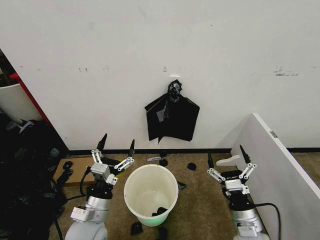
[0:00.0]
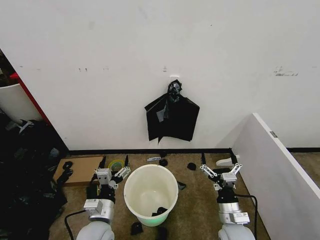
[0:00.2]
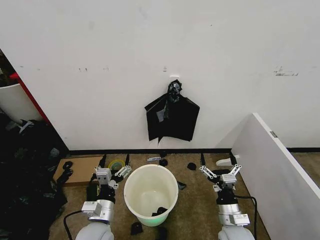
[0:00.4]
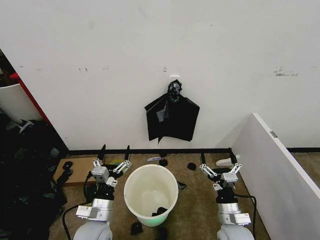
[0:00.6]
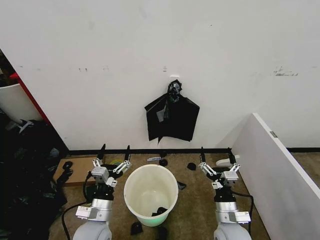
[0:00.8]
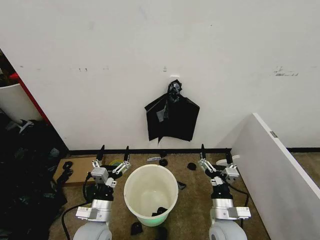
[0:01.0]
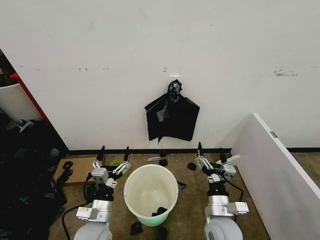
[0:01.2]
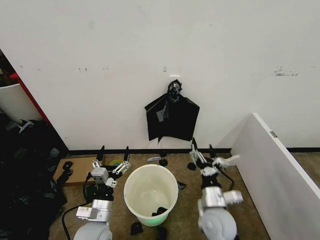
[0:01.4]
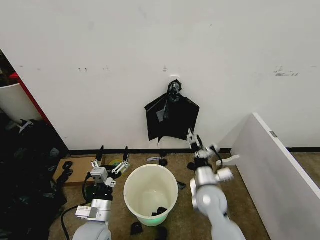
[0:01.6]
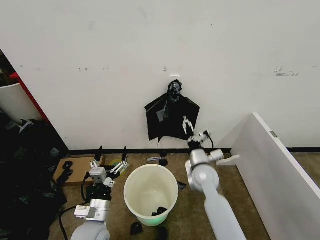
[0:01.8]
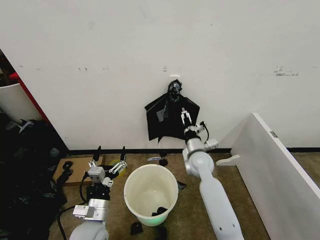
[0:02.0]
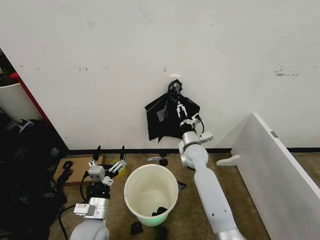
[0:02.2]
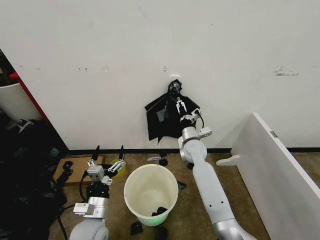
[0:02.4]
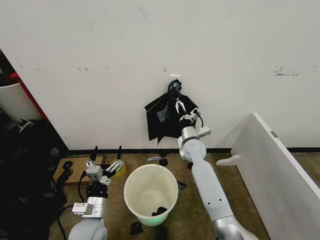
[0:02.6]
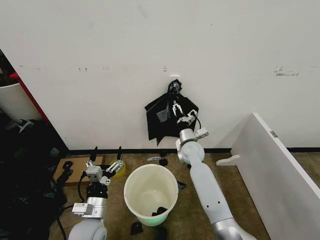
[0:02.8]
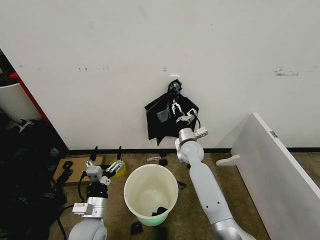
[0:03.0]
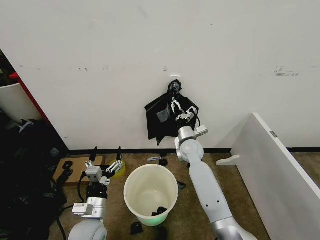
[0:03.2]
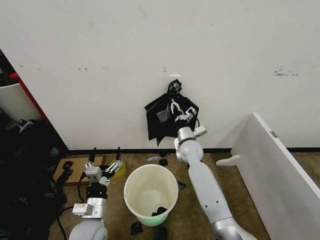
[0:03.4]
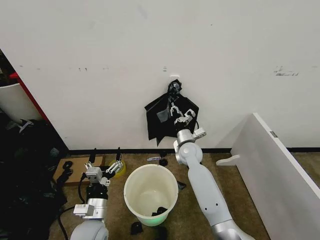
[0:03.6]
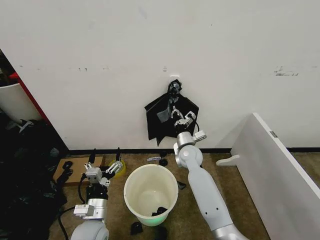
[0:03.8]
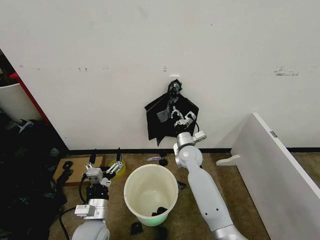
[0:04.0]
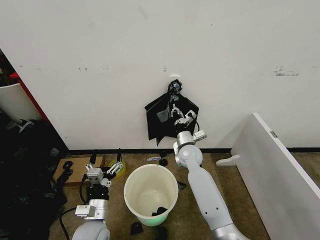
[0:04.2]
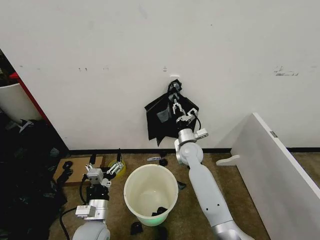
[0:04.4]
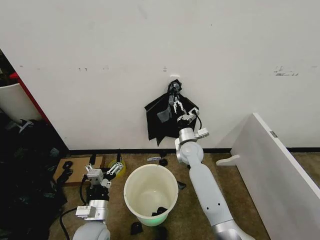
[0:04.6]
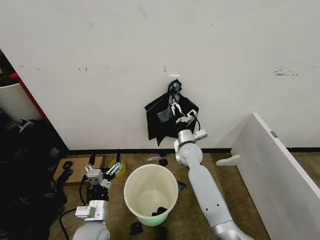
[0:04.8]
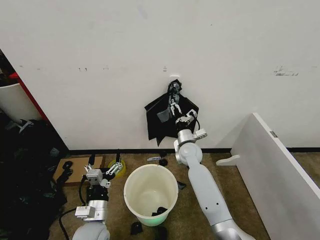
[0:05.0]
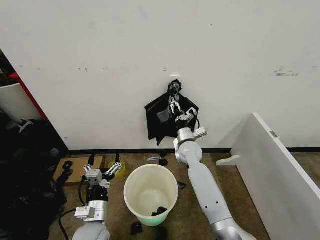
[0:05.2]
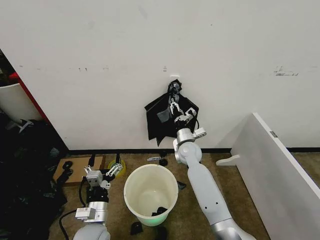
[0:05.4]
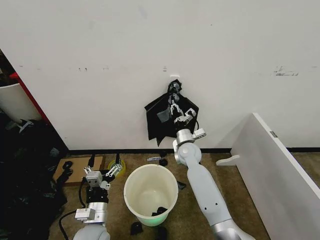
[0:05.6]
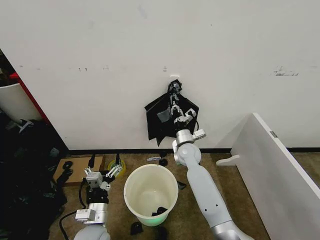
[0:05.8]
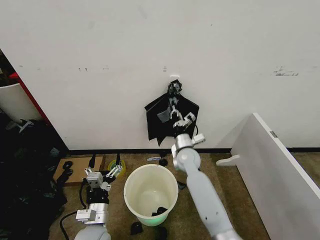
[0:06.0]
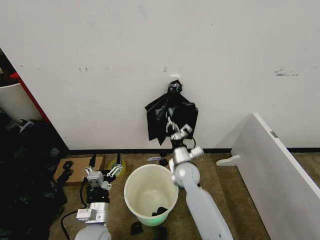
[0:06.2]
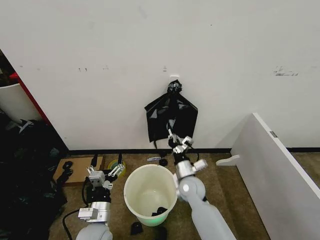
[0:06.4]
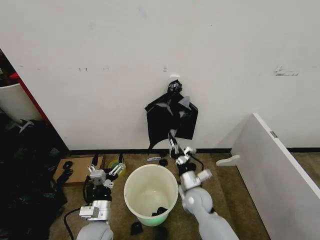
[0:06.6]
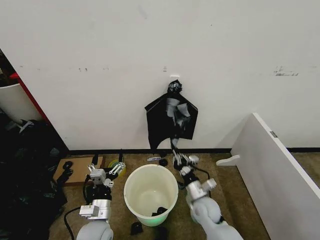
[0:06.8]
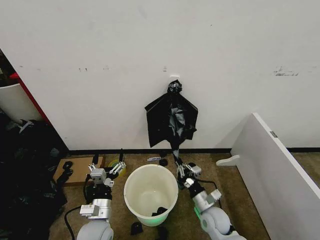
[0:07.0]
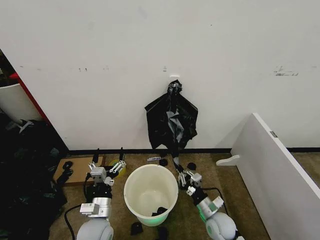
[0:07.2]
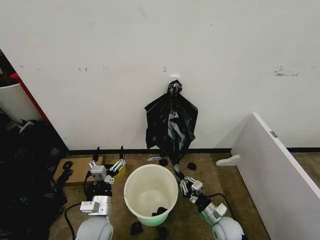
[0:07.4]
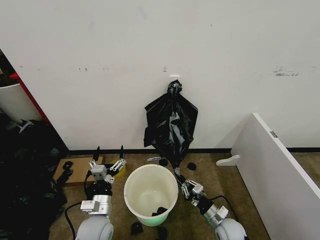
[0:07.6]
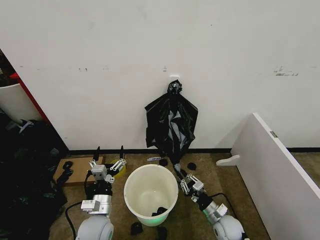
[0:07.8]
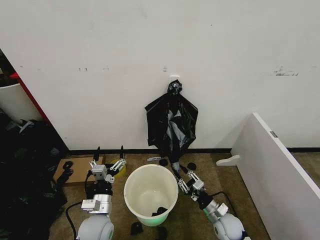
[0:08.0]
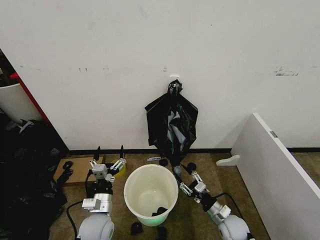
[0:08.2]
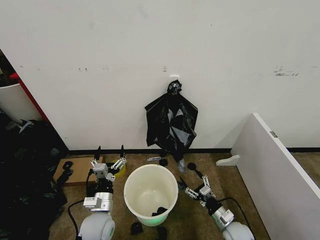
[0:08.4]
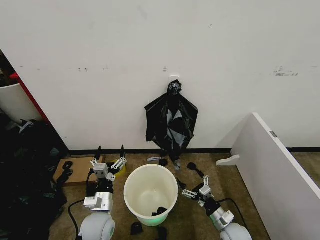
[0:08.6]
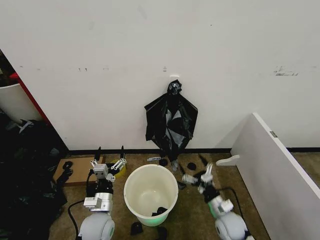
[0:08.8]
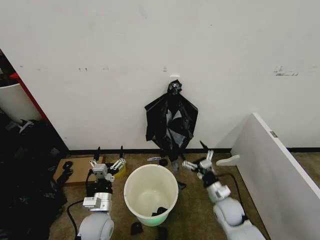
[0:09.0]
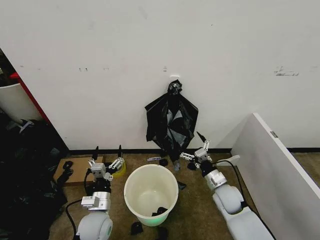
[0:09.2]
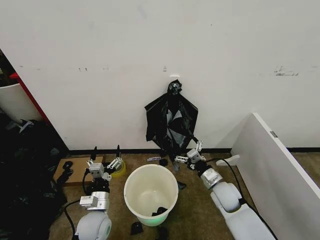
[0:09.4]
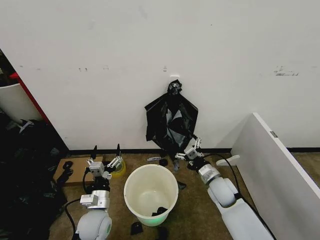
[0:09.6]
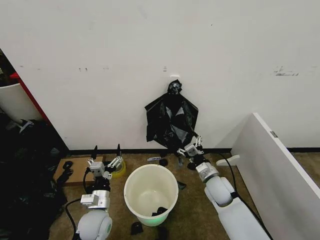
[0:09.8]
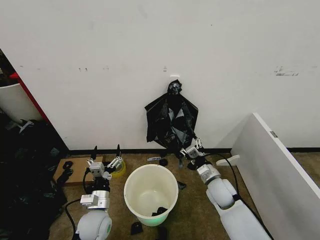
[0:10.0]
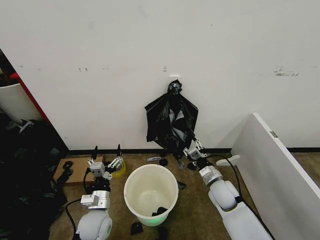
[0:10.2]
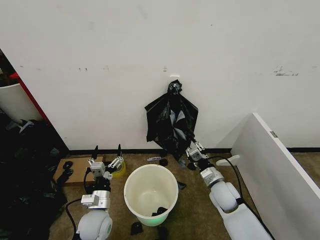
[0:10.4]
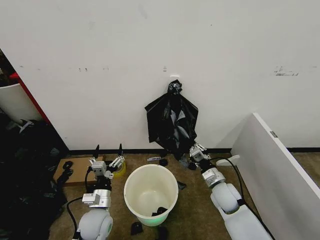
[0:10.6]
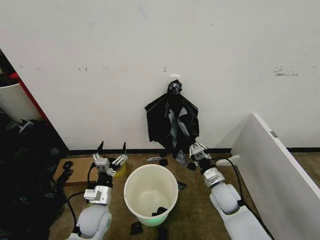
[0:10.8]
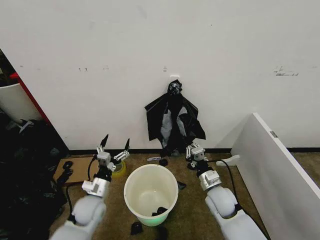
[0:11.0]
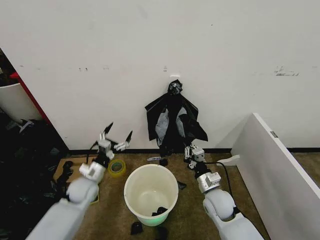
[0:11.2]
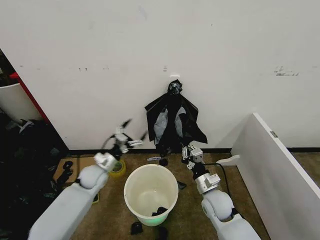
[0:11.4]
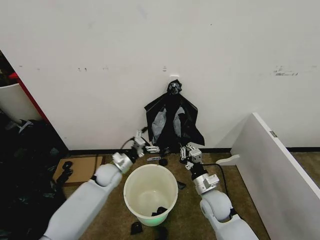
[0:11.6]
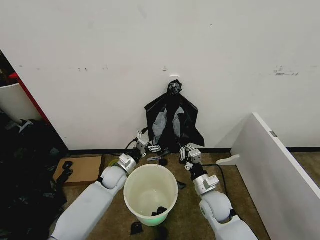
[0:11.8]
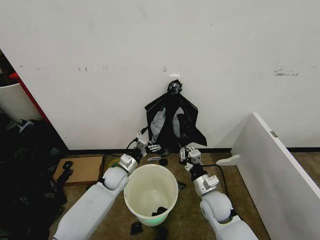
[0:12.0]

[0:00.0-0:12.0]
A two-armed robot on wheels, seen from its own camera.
Task of the whole recording: Place the garbage bag over the trash bin.
0:01.6 to 0:03.0: The right gripper heads forward, covering roughly 20 cm, and closes up.
0:03.0 to 0:04.4: The grippers stay close to where they were, moving slightly.
0:04.4 to 0:06.0: The right gripper opens, then closes again.
0:06.0 to 0:07.6: The right gripper is displaced backward, downward and to the right by about 30 cm.
0:07.6 to 0:09.0: The right gripper heads upward and forward, covering about 10 cm, and opens up.
0:09.0 to 0:10.4: The right gripper shifts by about 5 cm, and closes up.
0:10.4 to 0:12.0: The right gripper moves about 5 cm, while the left gripper heads forward, covering about 15 cm.

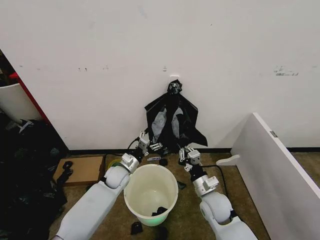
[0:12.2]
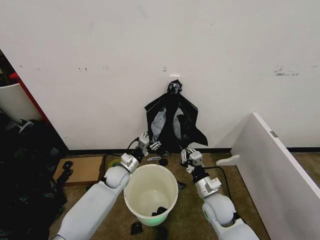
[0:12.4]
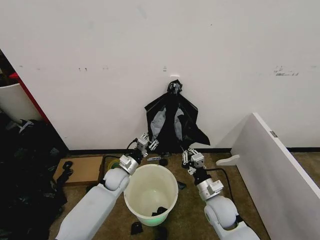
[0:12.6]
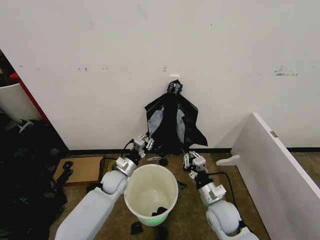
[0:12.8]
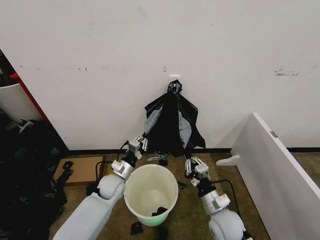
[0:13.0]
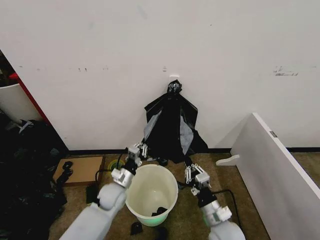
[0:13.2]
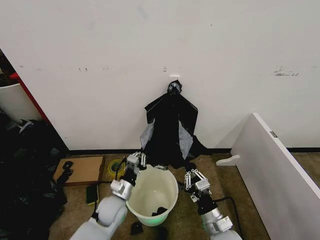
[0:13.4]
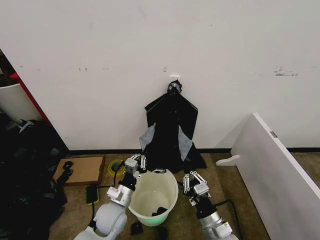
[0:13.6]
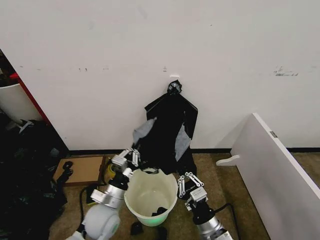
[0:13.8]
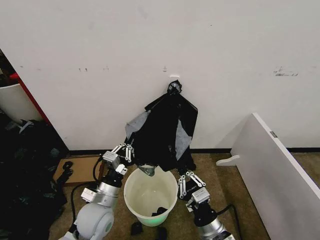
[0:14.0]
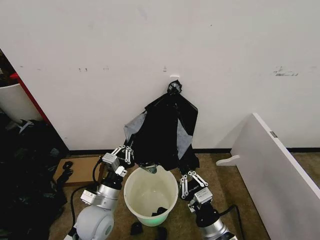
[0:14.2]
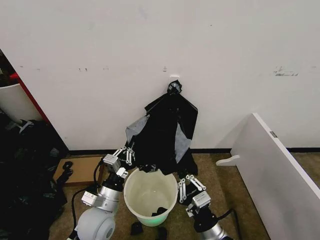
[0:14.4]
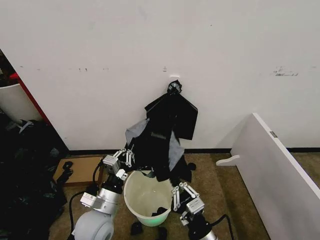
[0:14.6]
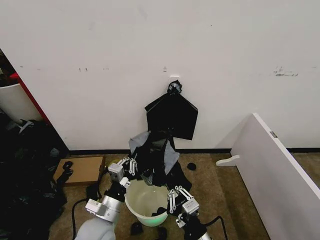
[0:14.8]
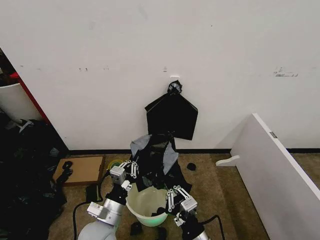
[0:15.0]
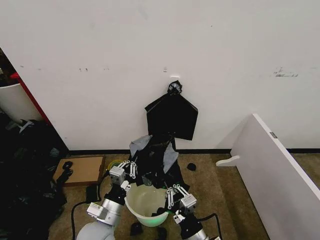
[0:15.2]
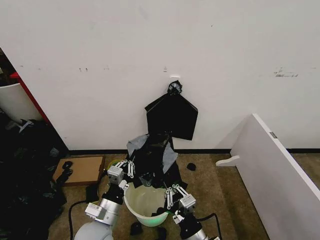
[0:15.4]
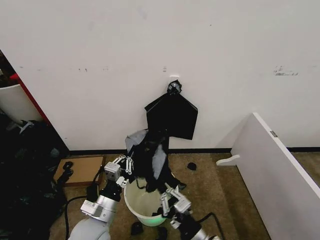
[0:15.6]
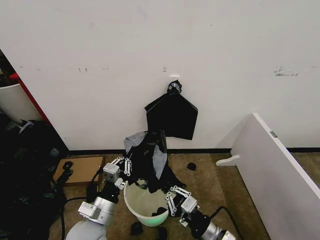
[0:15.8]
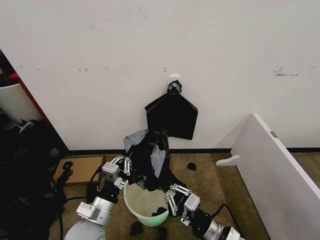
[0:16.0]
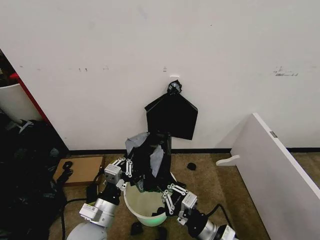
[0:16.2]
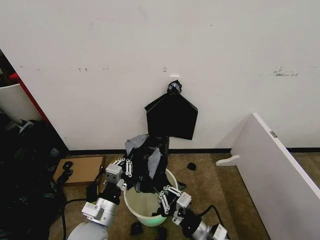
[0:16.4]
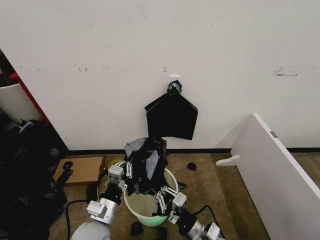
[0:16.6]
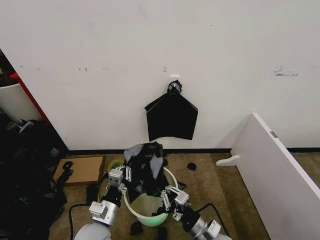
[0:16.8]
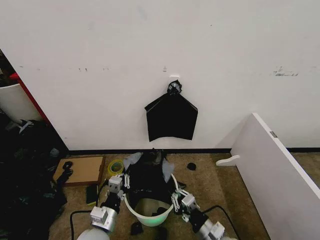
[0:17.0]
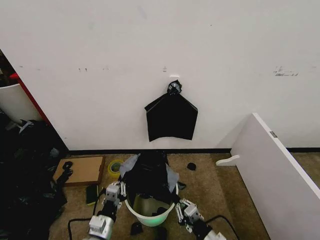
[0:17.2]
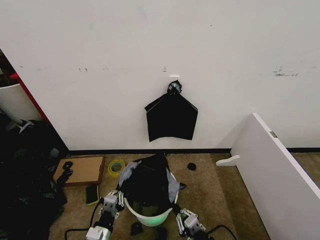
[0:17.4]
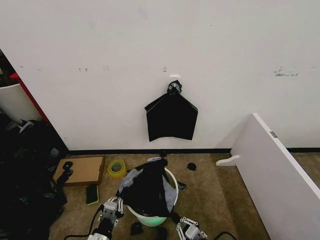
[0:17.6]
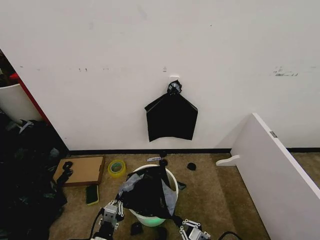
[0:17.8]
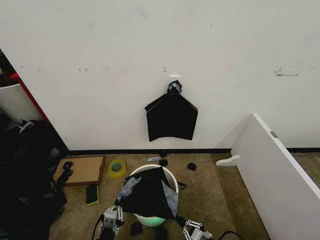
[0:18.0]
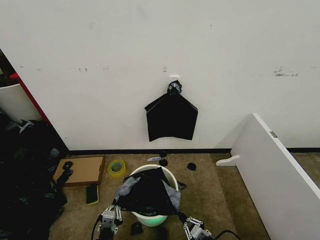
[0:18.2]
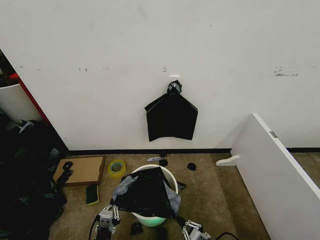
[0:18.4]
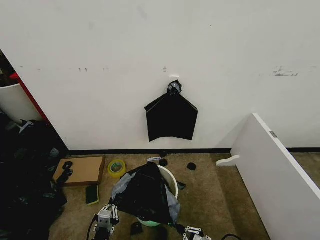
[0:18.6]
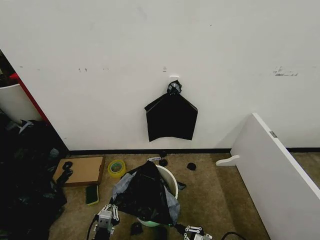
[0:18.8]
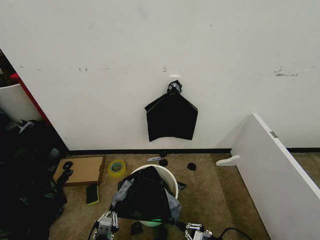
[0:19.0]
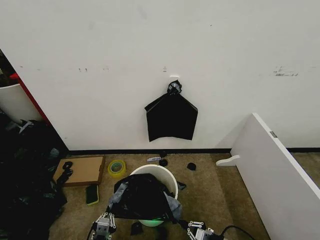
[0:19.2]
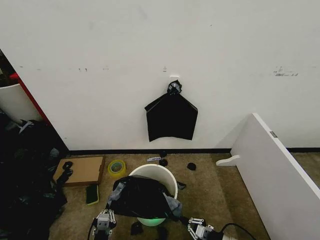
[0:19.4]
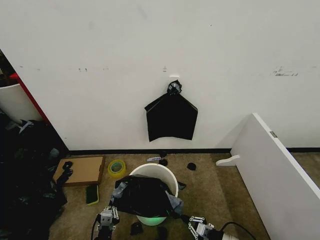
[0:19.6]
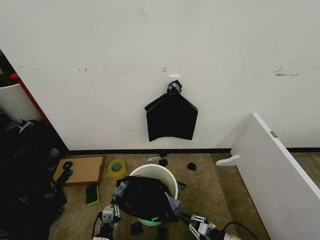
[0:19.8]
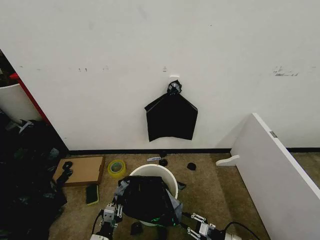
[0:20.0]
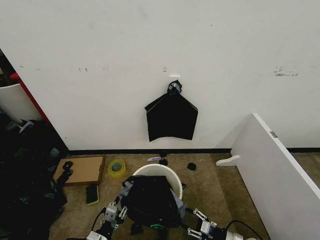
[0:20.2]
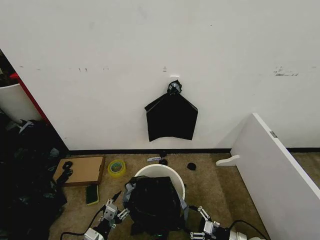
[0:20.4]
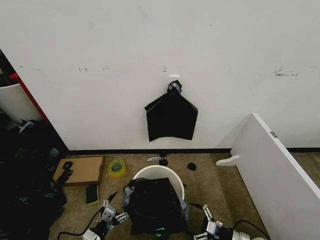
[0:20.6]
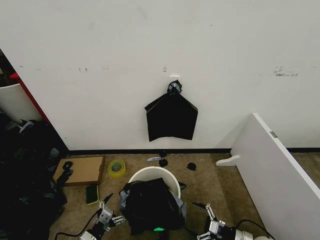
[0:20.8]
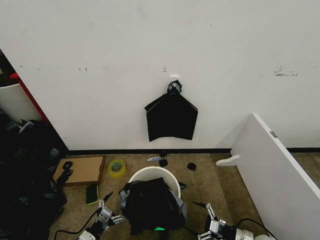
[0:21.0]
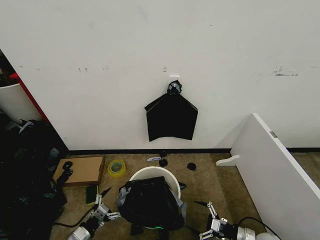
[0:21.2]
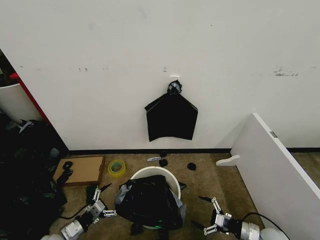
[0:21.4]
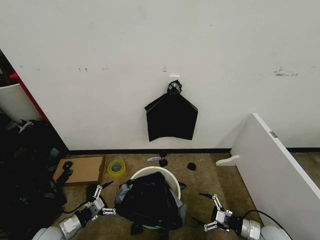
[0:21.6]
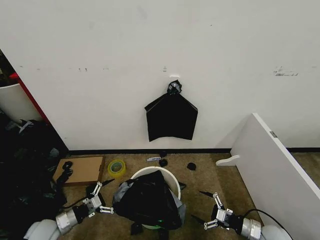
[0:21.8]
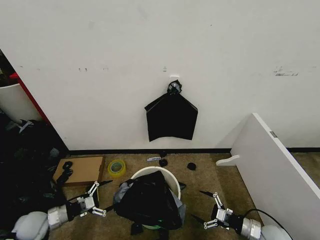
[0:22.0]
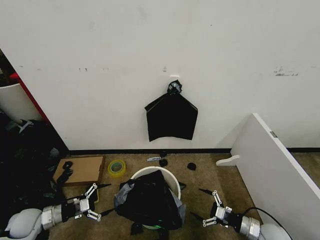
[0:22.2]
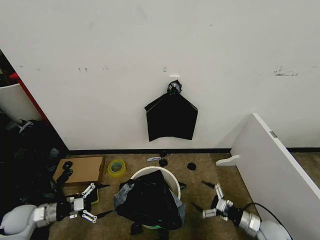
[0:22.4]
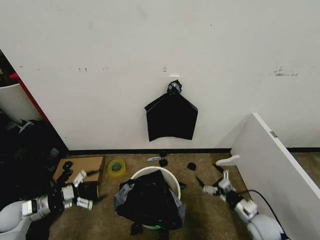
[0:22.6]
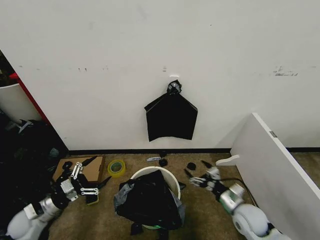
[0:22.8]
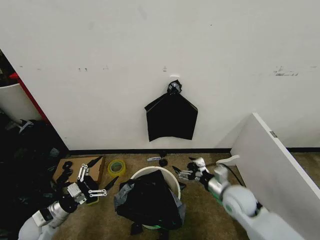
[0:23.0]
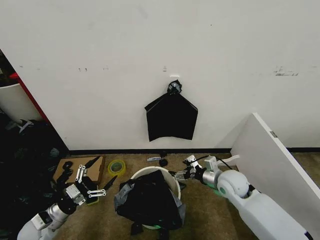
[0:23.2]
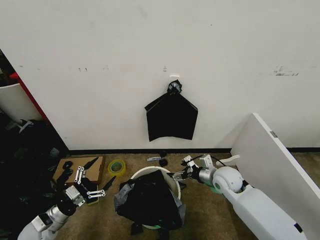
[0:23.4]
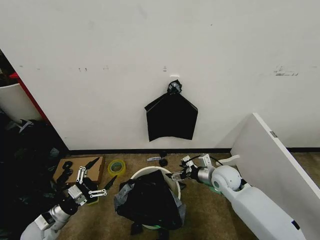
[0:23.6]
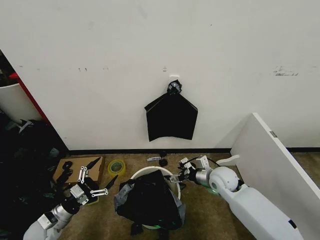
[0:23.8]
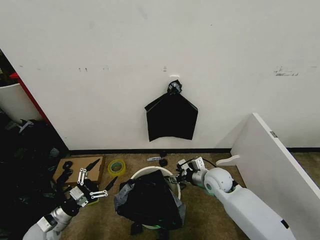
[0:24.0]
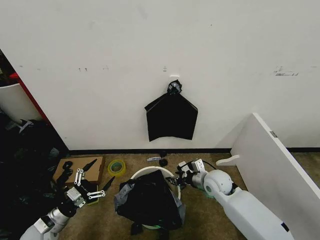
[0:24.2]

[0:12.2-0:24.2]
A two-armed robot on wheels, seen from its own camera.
Task of the whole recording: Place the garbage bag over the trash bin.
0:12.2 to 0:13.8: The grippers both shift backward by about 15 cm. The left gripper closes up.
0:13.8 to 0:15.2: The two grippers go about 5 cm backward.
0:16.6 to 0:18.2: The right gripper travels downward and to the right by roughly 15 cm. The left gripper heads downward and backward, covering approximately 20 cm.
0:18.2 to 0:19.8: The right gripper shifts approximately 10 cm to the right and forward.
0:19.8 to 0:21.2: The left gripper goes about 10 cm to the left, and opens up. Meanwhile the right gripper shifts some 5 cm to the right, and opens its fingers.
0:21.2 to 0:22.6: The left gripper goes some 20 cm to the left, forward and upward; the right gripper goes some 5 cm upward.
0:22.6 to 0:24.2: The left gripper goes roughly 10 cm to the right and backward, while the right gripper shifts approximately 20 cm to the left, forward and upward, and closes.
